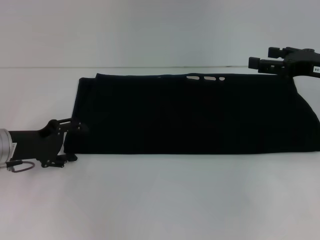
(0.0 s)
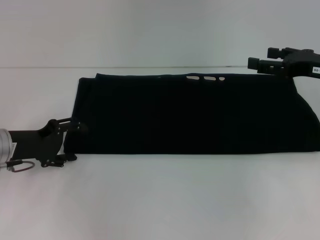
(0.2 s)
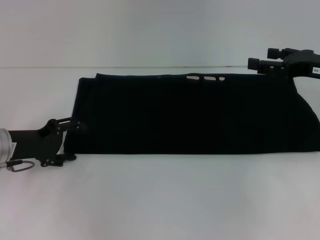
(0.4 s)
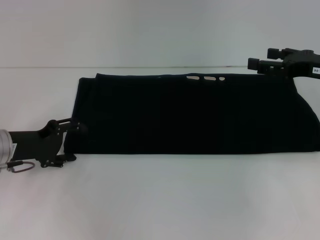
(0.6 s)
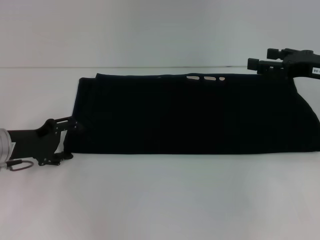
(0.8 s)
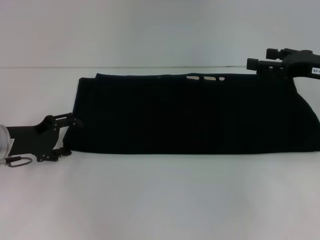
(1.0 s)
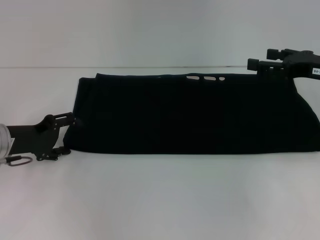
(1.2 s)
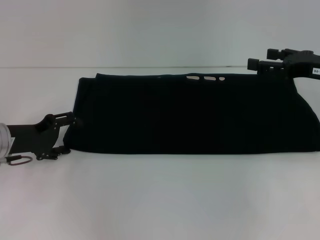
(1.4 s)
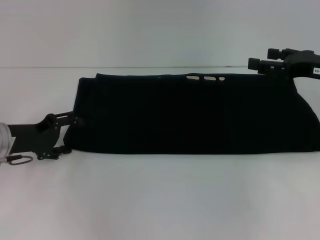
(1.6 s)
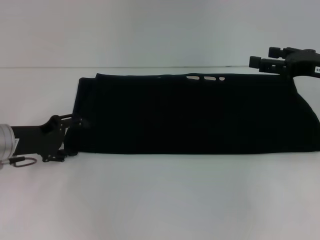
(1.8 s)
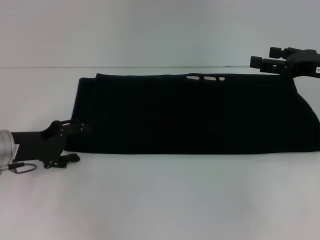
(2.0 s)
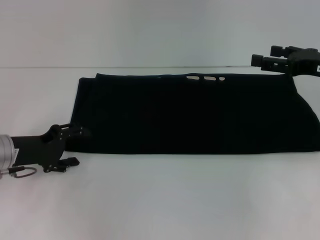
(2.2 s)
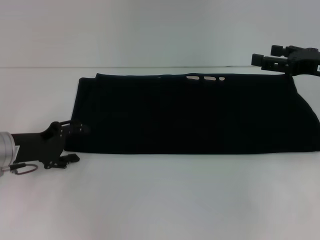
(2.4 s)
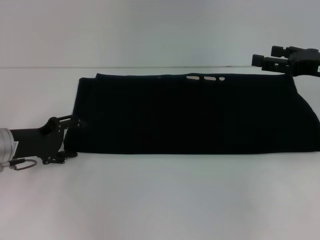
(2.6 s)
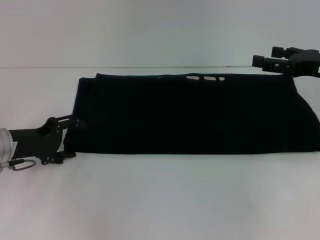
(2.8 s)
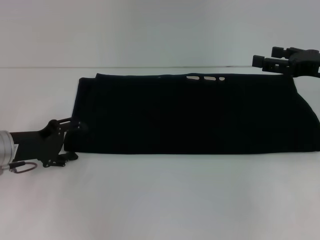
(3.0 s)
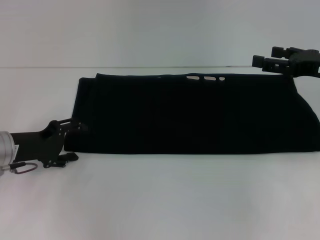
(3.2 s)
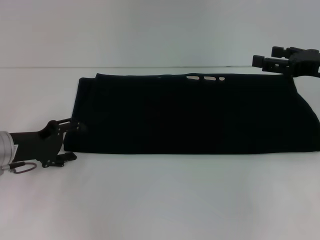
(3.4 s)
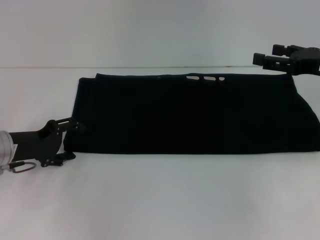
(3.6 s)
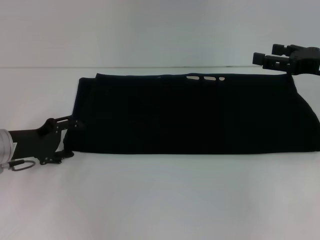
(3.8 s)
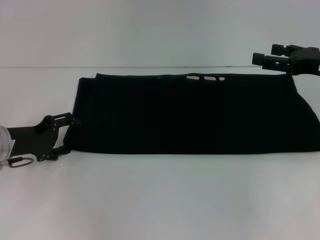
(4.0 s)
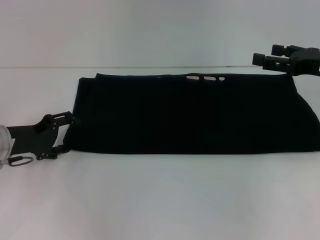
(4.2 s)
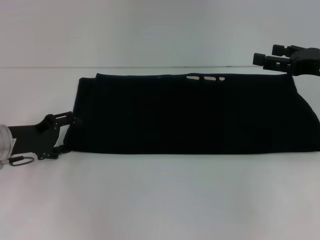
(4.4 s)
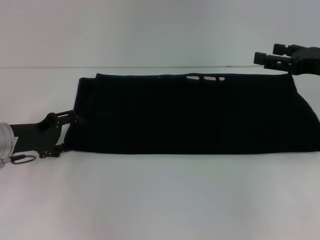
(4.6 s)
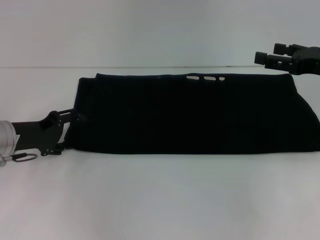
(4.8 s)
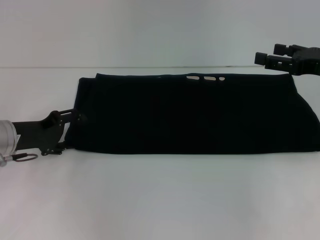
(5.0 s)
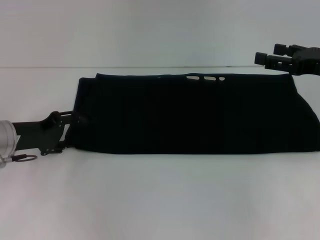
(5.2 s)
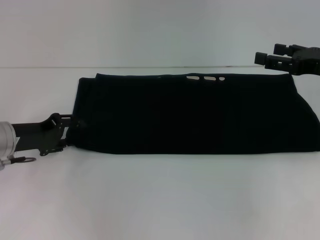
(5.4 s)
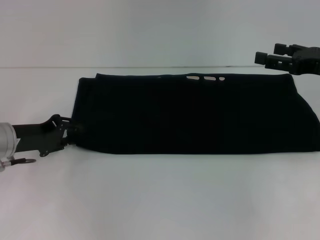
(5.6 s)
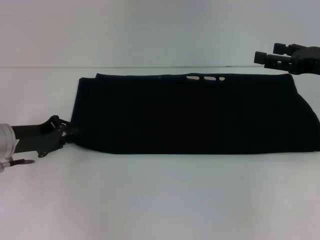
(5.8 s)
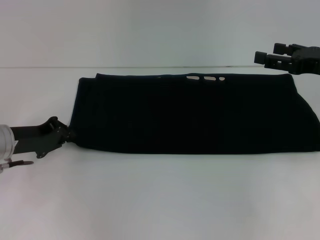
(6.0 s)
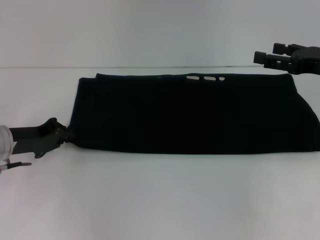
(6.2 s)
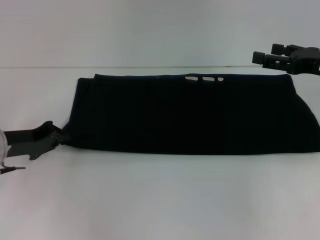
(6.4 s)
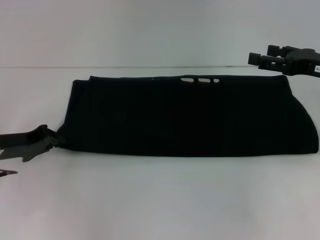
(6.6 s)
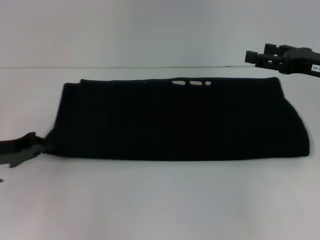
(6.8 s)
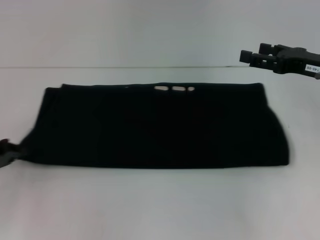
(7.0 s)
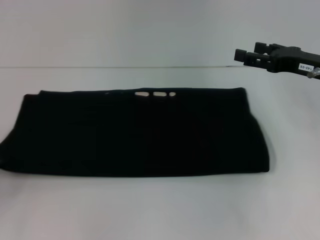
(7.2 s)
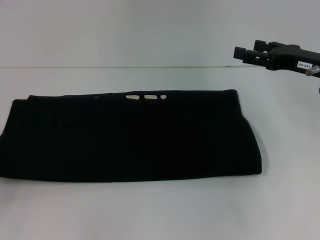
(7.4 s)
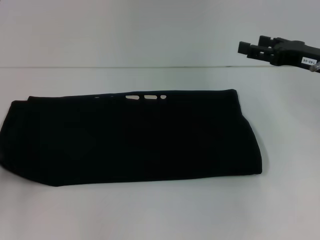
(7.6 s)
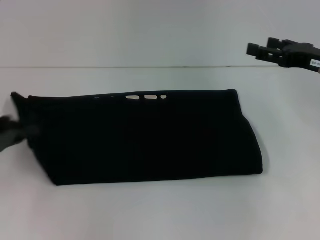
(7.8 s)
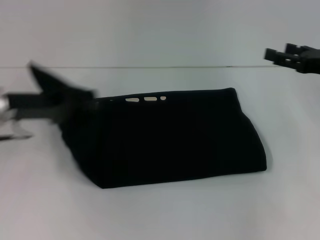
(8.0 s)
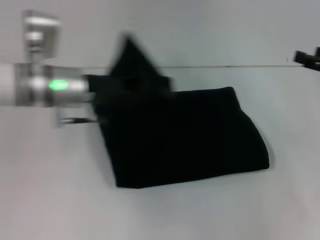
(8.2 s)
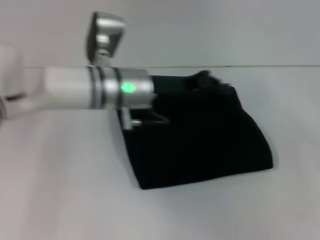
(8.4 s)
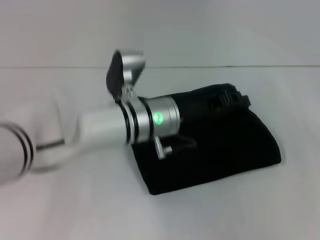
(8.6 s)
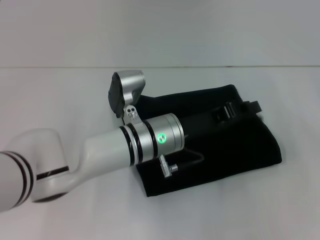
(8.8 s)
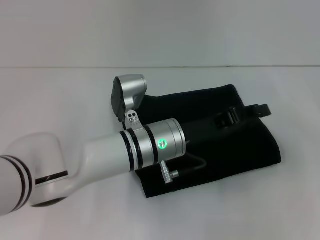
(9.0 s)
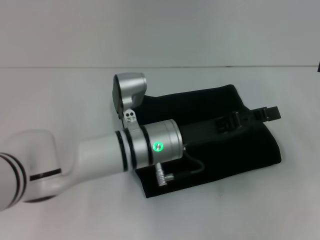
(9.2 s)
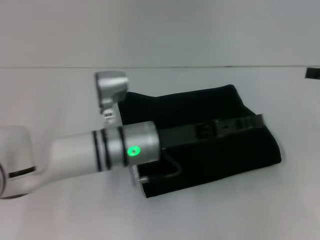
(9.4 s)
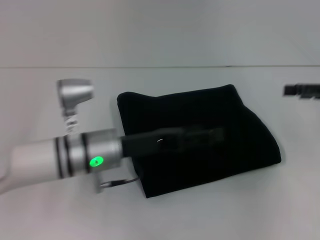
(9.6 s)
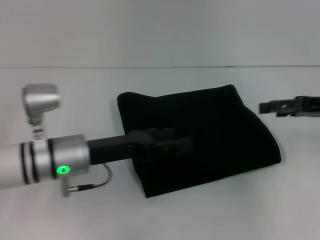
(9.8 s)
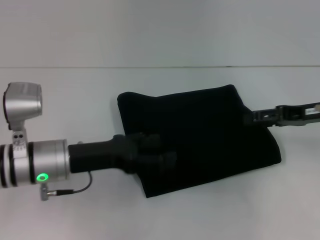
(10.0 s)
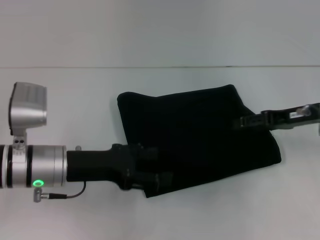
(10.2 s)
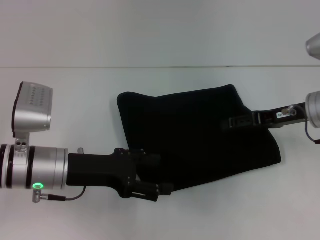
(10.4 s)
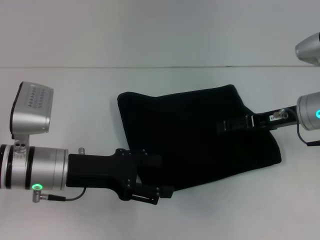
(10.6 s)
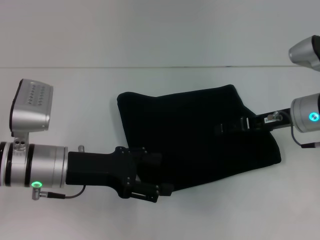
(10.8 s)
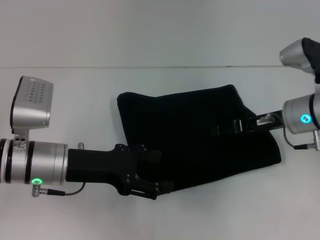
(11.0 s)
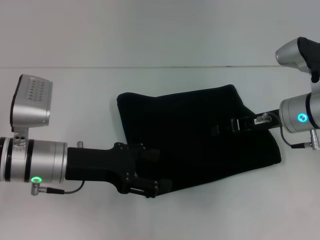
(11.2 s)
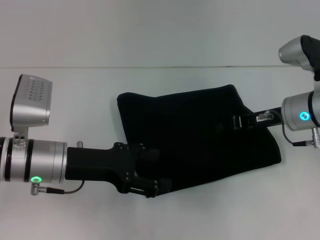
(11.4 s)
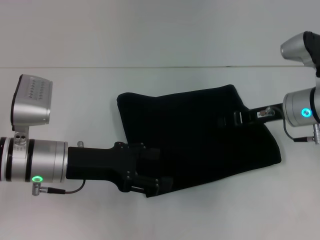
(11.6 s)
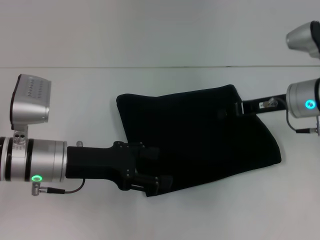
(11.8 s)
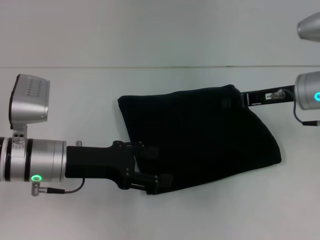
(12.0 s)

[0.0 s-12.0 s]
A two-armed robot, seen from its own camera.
Step, 0.0 to 9.4 s: Fold the clothes with your left hand.
0.0 to 4.4 s: The grippers stay close to where they were, moving slightly.
4.4 to 6.0 s: The left gripper closes its fingers.
6.0 to 7.6 s: The left gripper moves to the left and backward, approximately 15 cm.
7.6 to 9.0 s: The left gripper shifts about 35 cm to the right. Meanwhile the right gripper goes about 10 cm to the right.
9.0 to 10.4 s: Both grippers travel together to the left, roughly 15 cm. The left gripper opens up.
10.4 to 12.0 s: The right gripper closes its fingers.

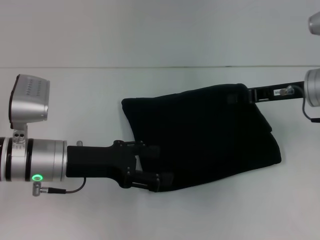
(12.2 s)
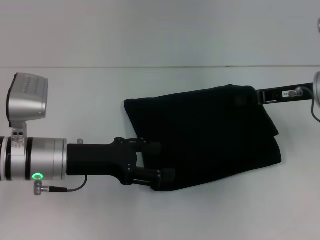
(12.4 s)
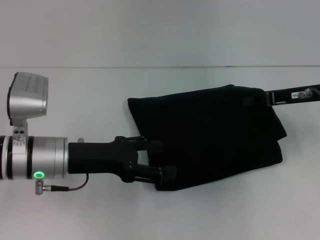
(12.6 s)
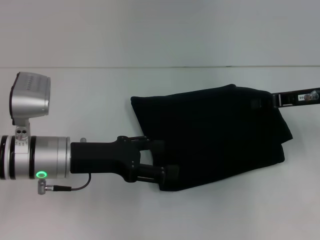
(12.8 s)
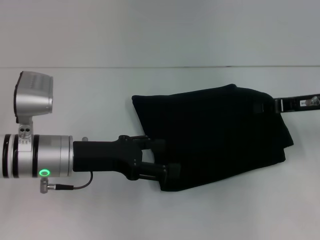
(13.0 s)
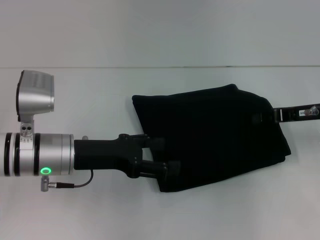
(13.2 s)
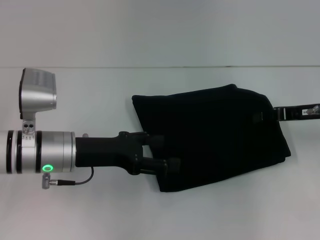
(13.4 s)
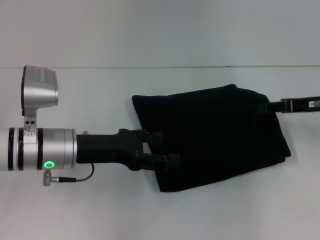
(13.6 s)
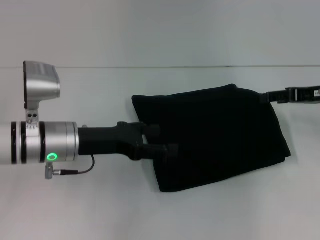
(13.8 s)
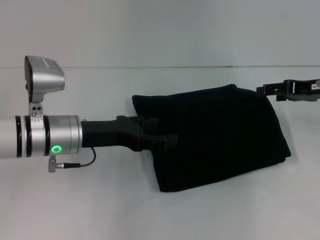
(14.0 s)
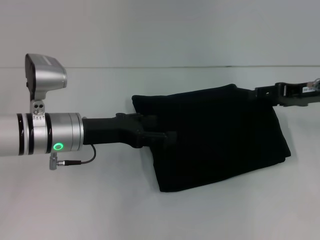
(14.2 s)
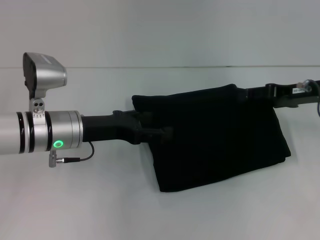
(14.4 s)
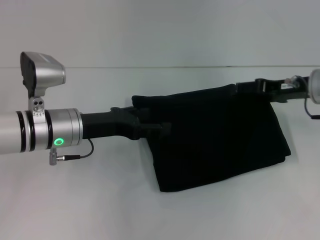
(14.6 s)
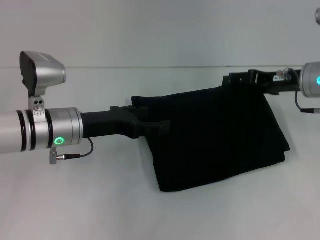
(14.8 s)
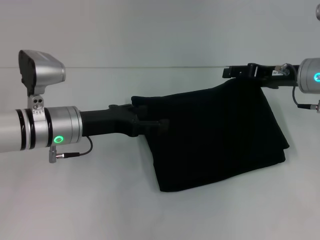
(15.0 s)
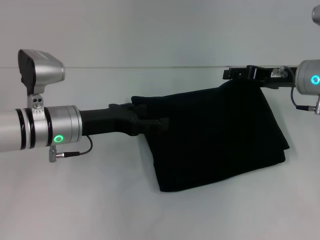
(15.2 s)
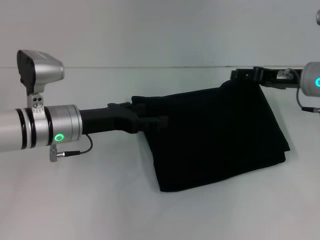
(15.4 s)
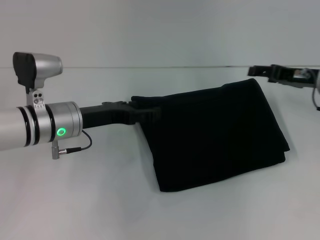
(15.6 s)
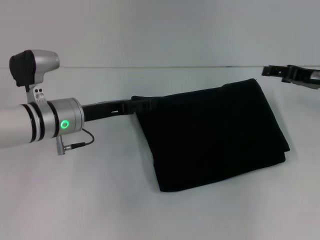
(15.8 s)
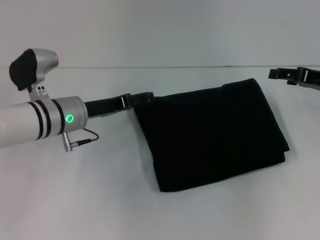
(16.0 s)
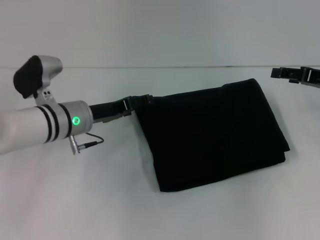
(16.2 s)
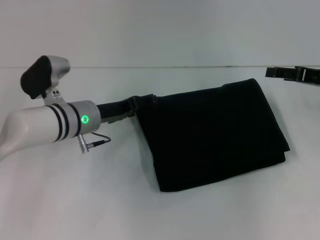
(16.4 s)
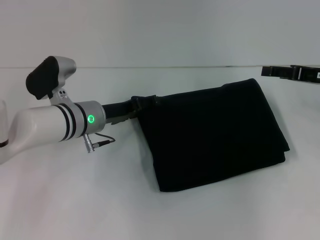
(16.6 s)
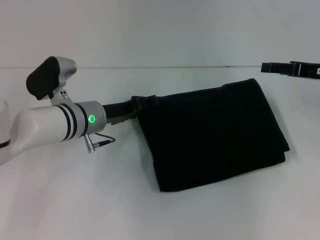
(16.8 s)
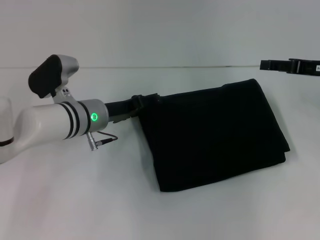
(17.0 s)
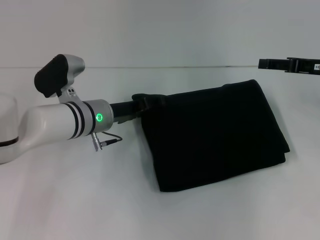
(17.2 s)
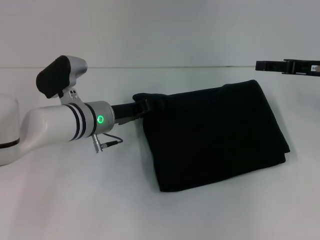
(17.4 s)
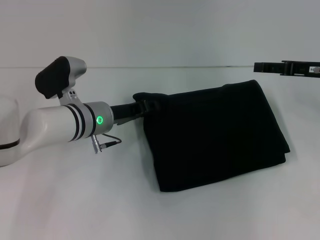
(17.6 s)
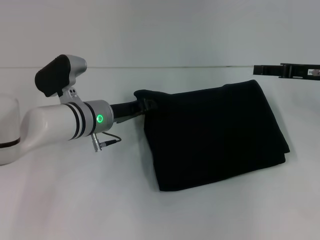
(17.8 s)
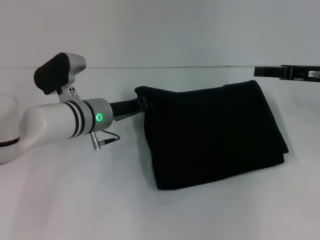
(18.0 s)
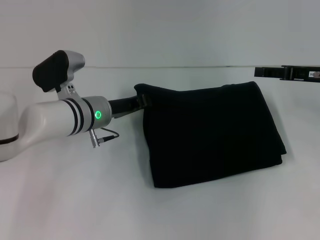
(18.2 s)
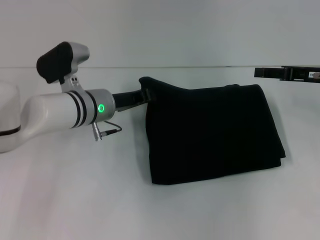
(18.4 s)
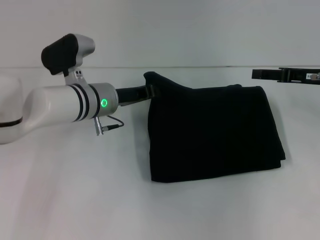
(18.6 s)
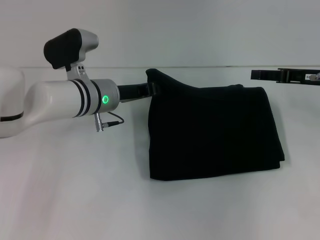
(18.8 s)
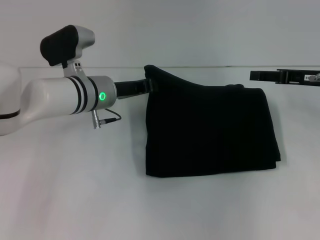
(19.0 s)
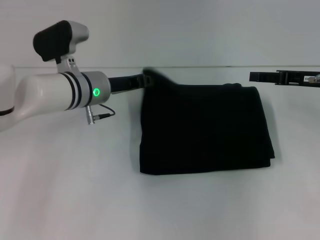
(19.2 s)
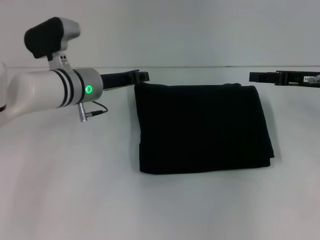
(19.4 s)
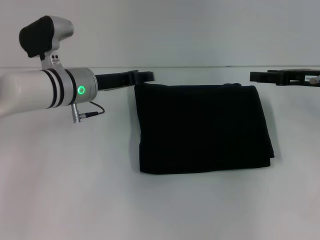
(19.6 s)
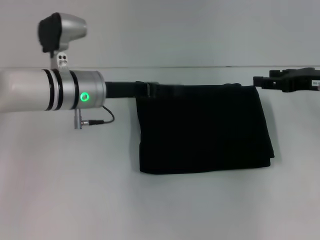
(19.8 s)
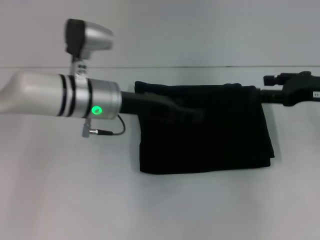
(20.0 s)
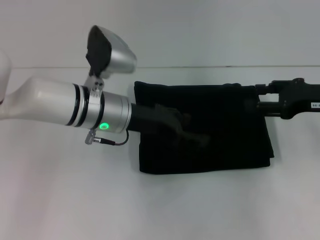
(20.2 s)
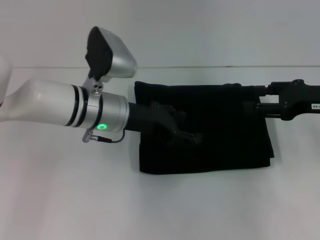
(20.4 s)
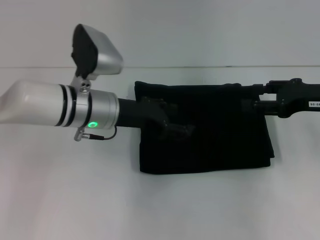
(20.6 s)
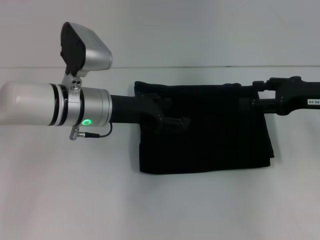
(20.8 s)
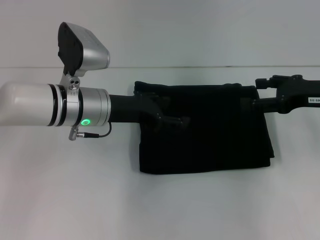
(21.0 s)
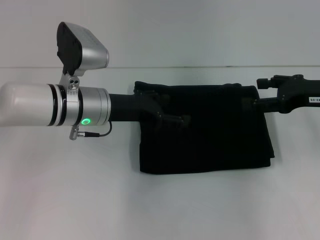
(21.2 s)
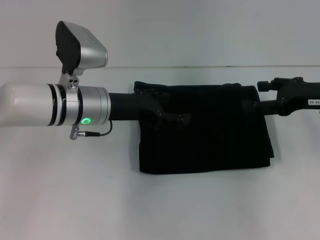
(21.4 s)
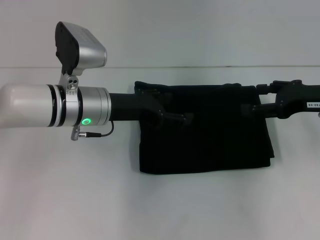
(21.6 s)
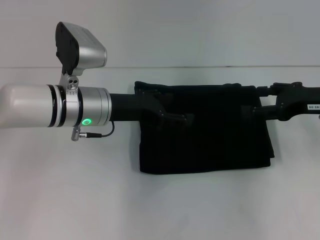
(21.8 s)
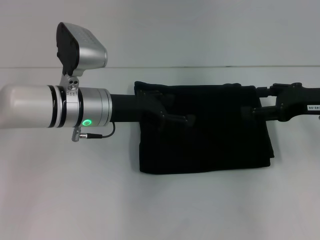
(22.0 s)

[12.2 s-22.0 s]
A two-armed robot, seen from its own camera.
12.2 to 13.6 s: The right gripper heads to the right, covering some 5 cm.
13.6 to 15.0 s: The right gripper moves to the left, some 5 cm, and opens up.
15.0 to 16.4 s: The left gripper ends up about 5 cm from where it was. The right gripper is displaced to the right by roughly 5 cm.
16.4 to 17.8 s: The left gripper closes up.
17.8 to 19.2 s: The left gripper closes.
19.2 to 20.6 s: The left gripper moves roughly 5 cm, and opens.
20.6 to 22.0 s: The grippers move only a little.

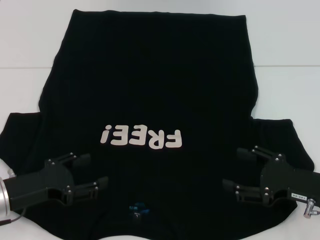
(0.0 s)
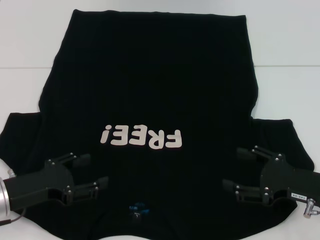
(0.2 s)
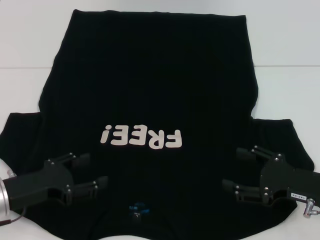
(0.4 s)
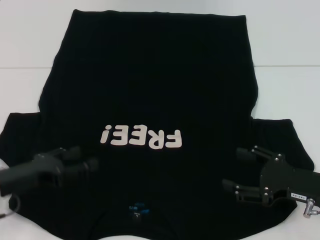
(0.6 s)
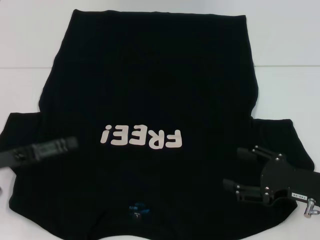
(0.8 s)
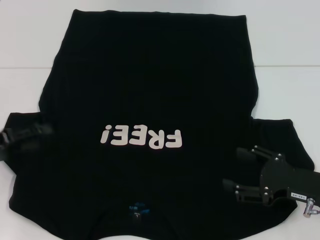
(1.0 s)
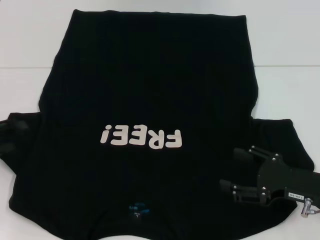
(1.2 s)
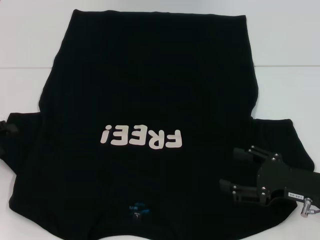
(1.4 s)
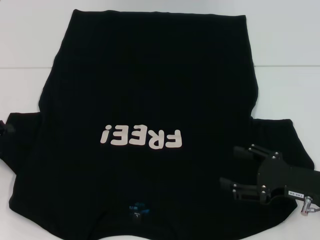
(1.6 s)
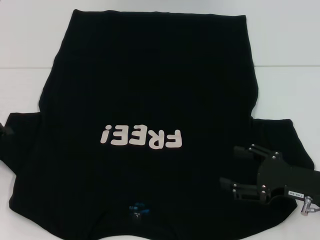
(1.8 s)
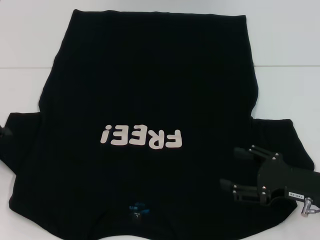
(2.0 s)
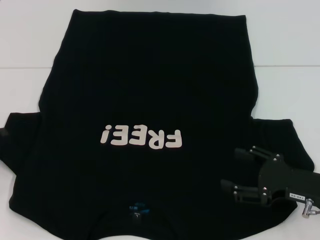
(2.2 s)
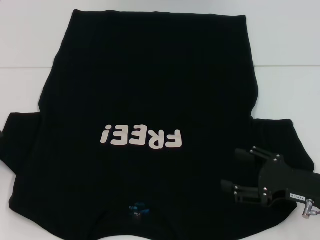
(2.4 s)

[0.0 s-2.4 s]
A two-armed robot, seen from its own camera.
0.0 to 1.2 s: The left gripper heads to the left, covering roughly 10 cm.
